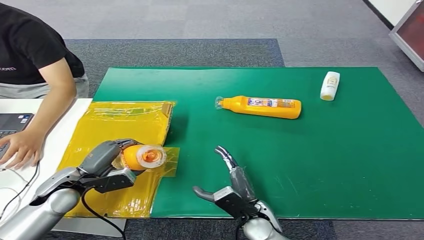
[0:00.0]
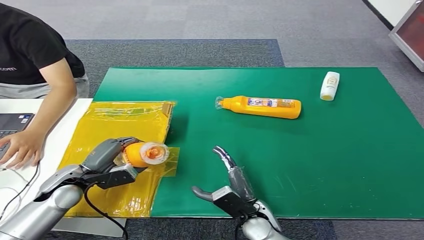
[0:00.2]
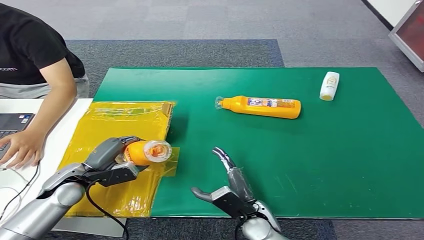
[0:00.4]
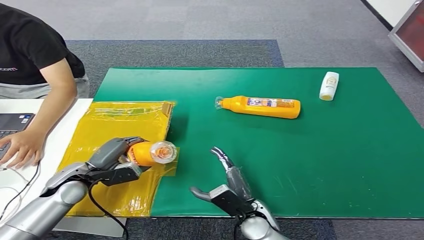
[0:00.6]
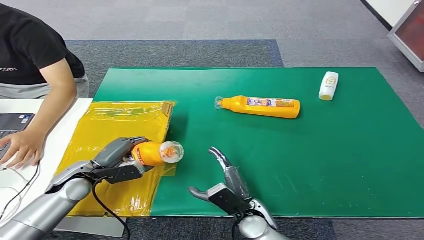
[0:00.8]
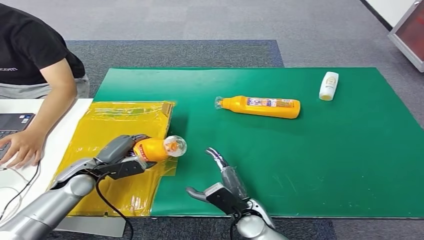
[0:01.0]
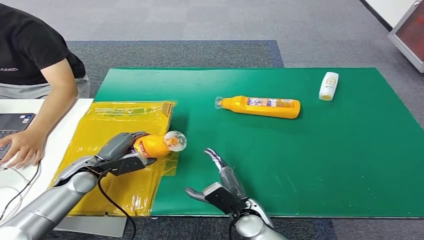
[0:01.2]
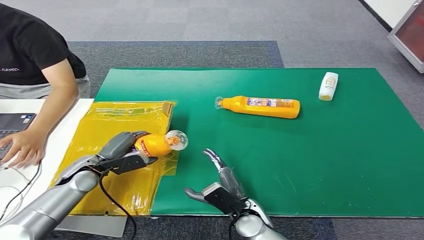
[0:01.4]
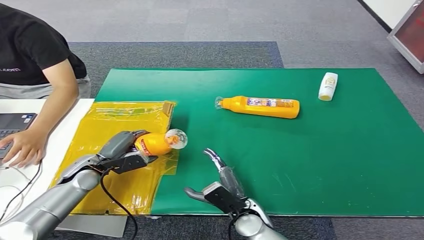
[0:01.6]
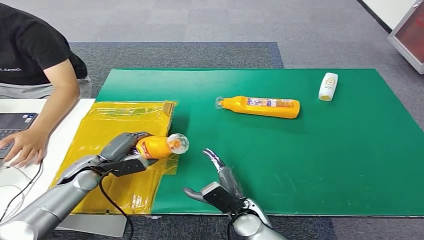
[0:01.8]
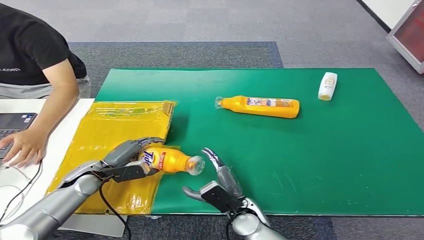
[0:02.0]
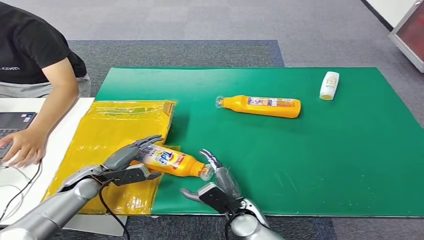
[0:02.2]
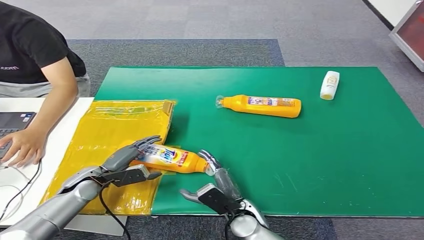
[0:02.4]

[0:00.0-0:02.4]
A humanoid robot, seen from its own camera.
Step, 0:00.0 to 0:02.4: Turn the bottle to the front side.
0:00.0 to 0:01.2: The left hand shifts some 5 cm forward.
0:01.2 to 0:02.4: The hands make only small movements.

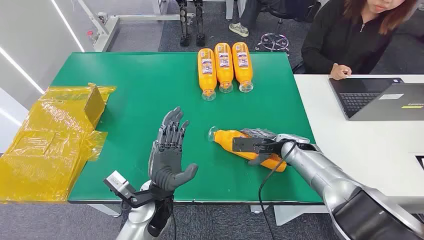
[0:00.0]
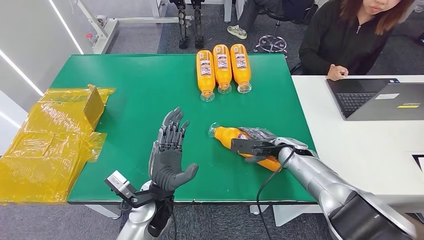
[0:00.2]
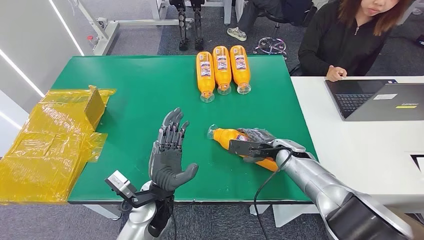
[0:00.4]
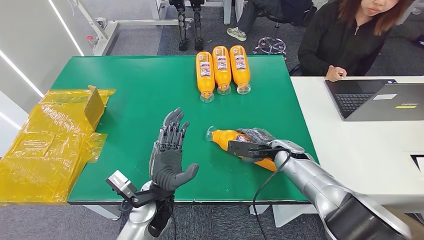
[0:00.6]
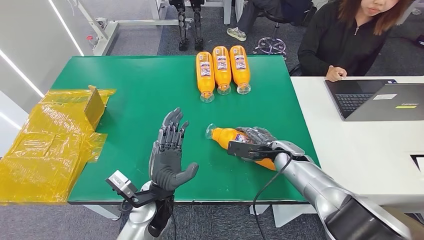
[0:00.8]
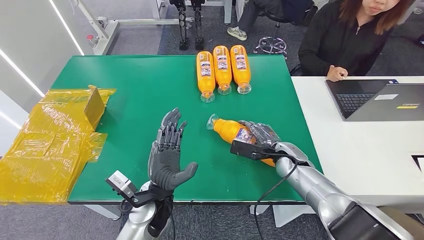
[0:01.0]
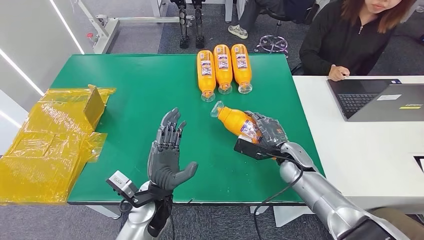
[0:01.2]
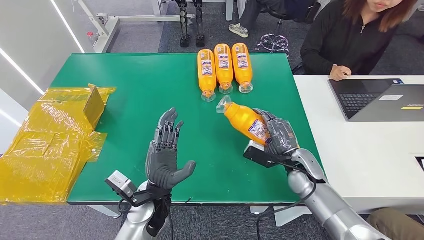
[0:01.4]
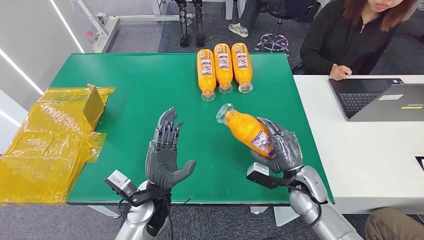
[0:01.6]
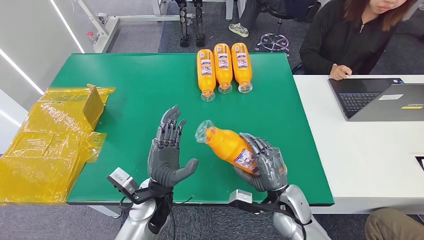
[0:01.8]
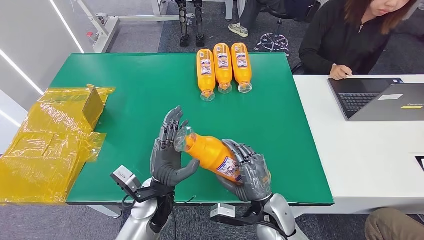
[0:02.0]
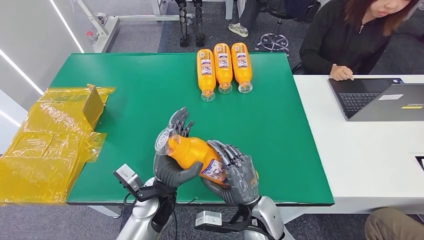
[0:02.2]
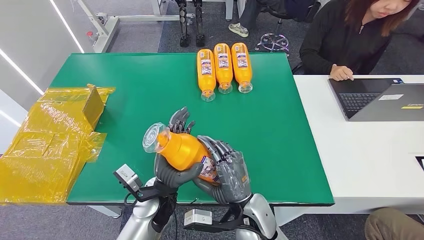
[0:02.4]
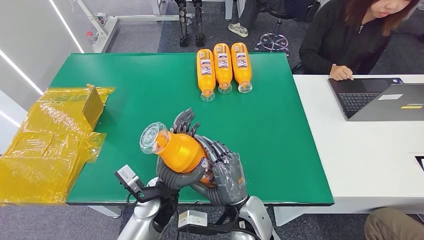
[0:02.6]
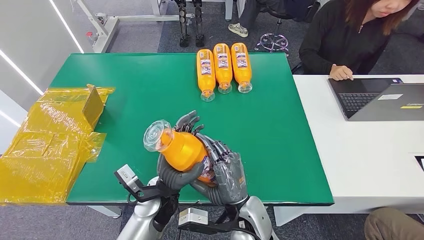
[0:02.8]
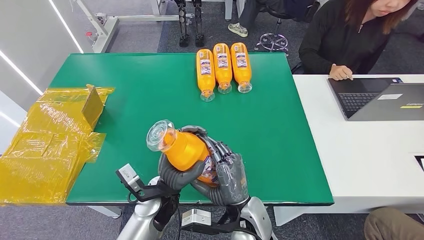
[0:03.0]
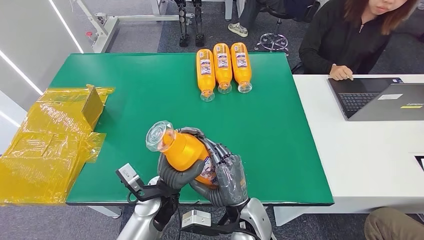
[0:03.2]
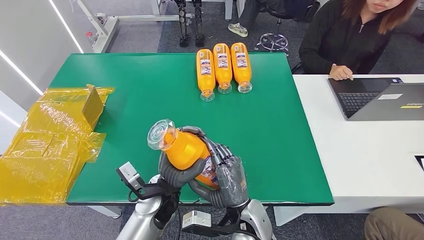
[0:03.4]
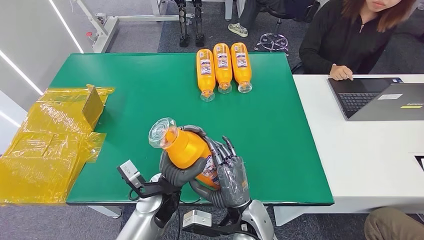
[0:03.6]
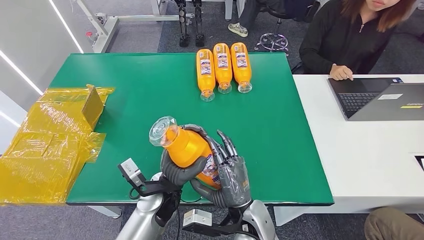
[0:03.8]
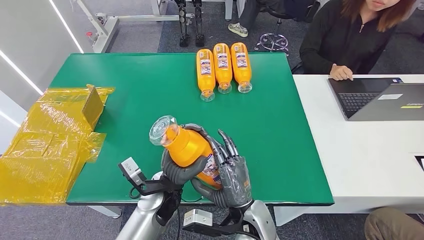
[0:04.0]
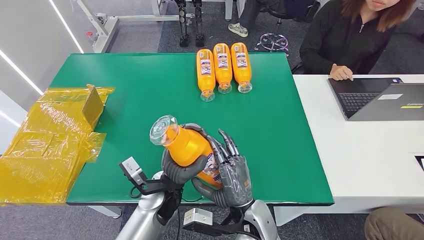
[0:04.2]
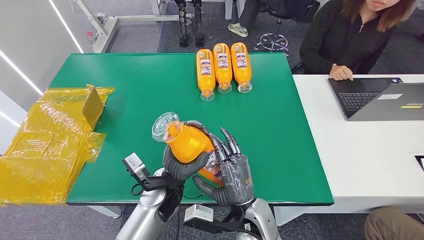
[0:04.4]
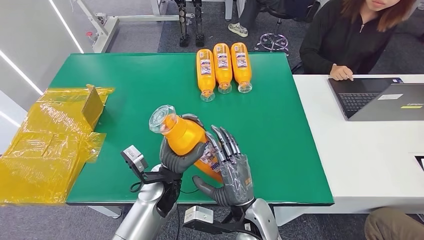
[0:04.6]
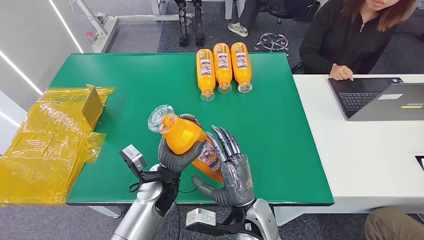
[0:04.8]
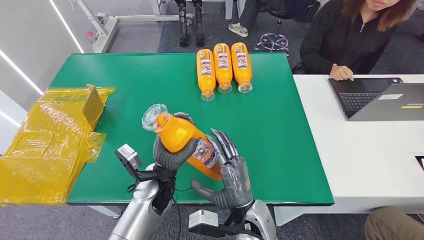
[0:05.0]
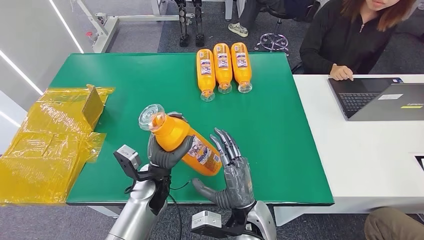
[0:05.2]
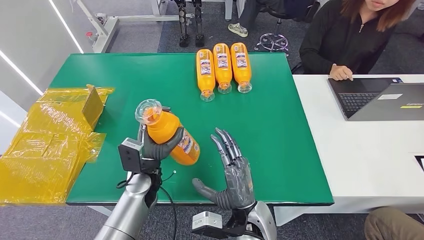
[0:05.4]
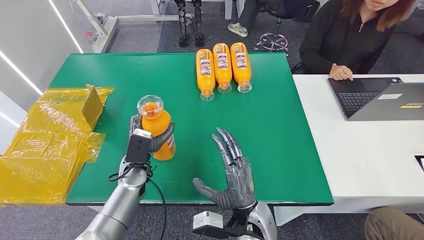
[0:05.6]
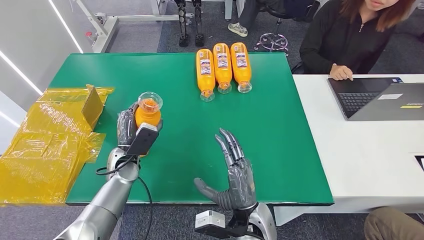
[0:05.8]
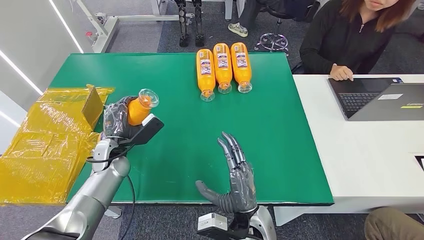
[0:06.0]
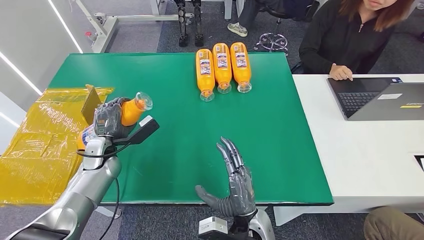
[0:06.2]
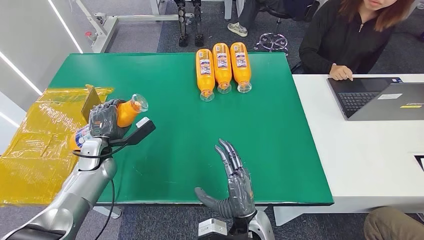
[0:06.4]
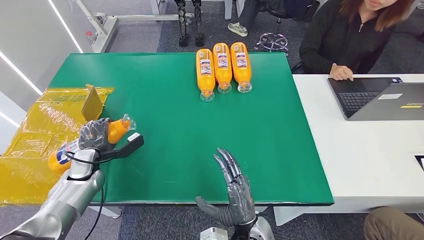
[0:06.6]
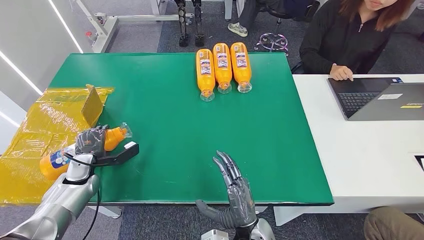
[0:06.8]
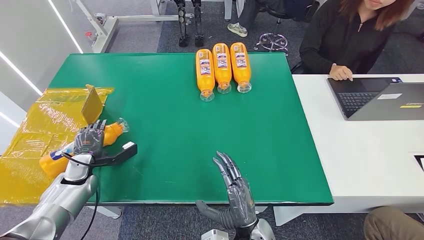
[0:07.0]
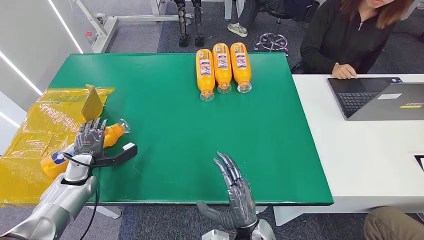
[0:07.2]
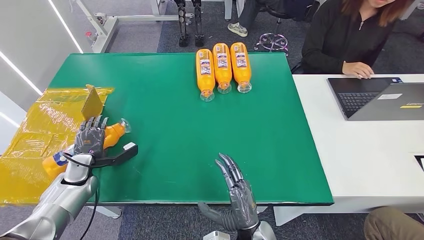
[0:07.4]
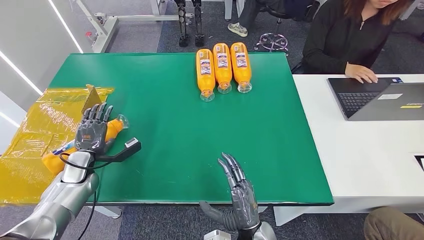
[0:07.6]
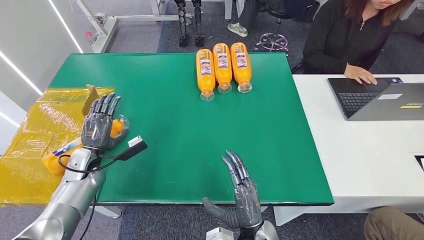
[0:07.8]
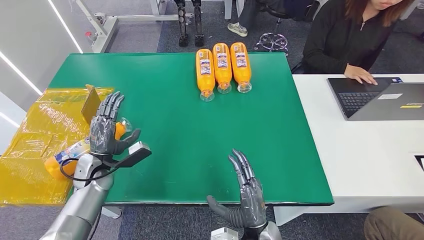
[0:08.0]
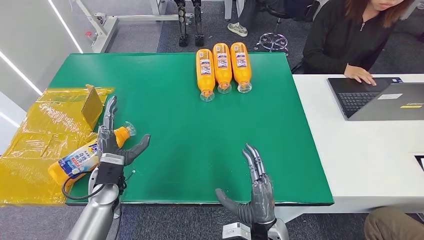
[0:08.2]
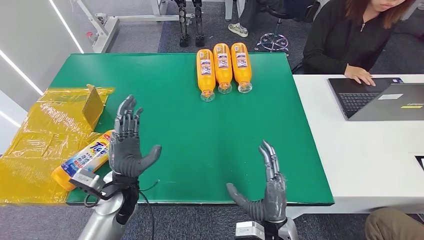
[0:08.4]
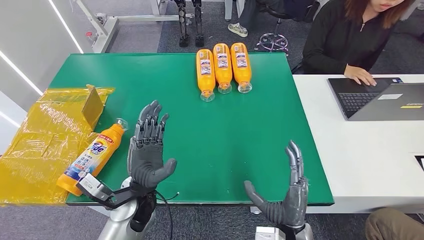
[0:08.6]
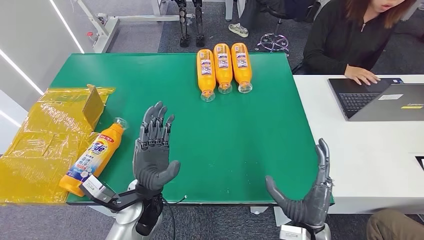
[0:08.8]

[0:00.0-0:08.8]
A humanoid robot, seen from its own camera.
Step, 0:00.0 to 0:03.0: Pick up the bottle from the table.
Step, 0:03.2 to 0:08.8: Turn the bottle to the front side.
0:01.4 to 0:03.0: The right hand heads to the left and backward, covering some 25 cm.
0:03.0 to 0:04.4: The hands make only small movements.
0:04.4 to 0:05.8: The left hand is displaced to the left and forward by approximately 15 cm.
0:05.8 to 0:07.4: The right hand goes some 5 cm downward; the left hand travels to the left by some 15 cm.
0:07.4 to 0:08.8: The right hand goes some 10 cm to the right. Meanwhile the left hand is displaced to the right by about 30 cm.
